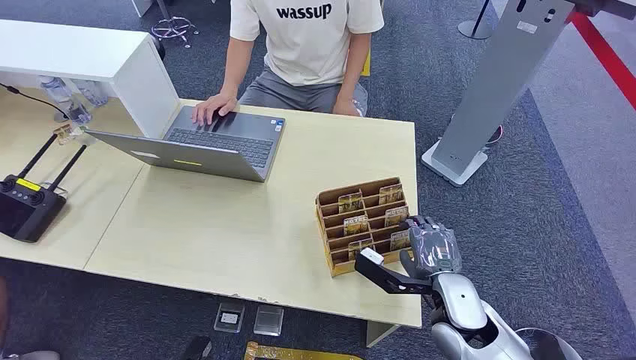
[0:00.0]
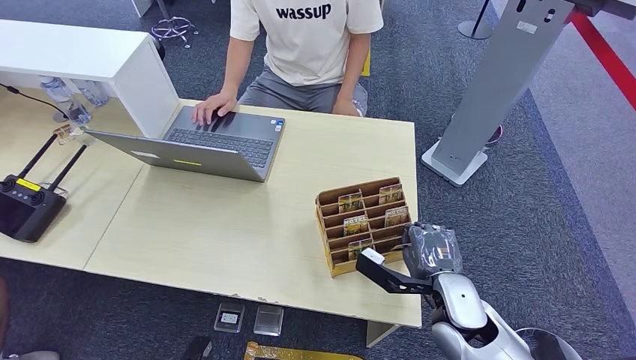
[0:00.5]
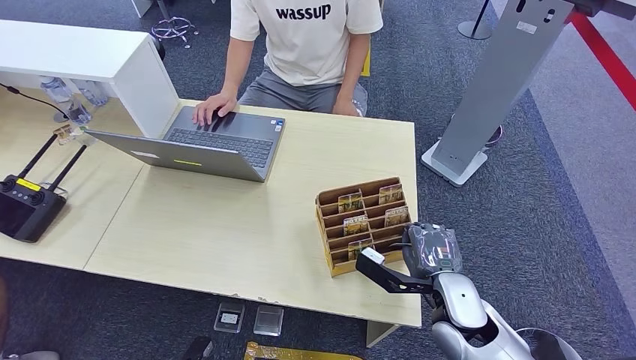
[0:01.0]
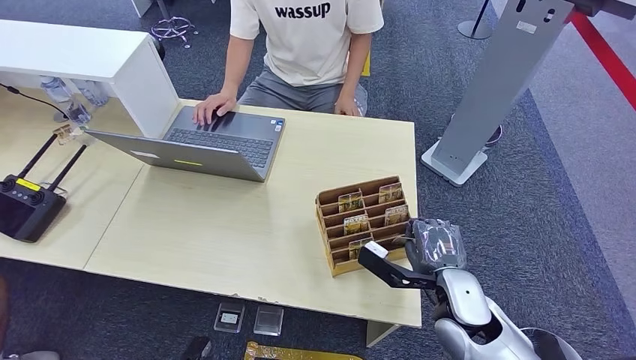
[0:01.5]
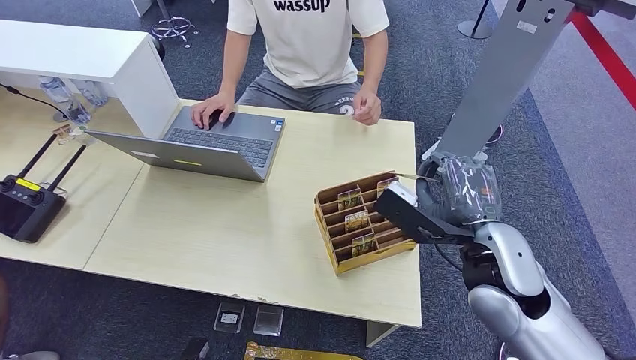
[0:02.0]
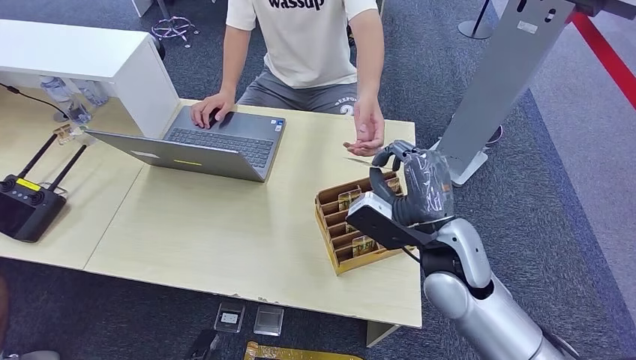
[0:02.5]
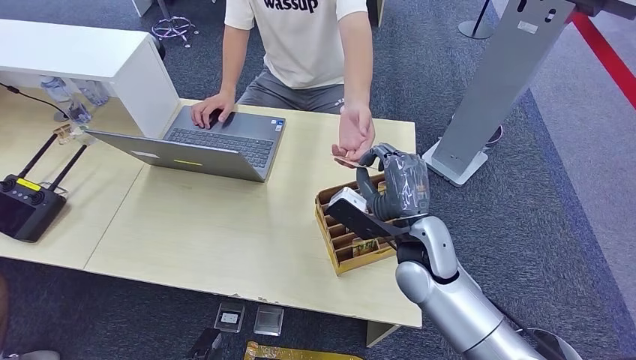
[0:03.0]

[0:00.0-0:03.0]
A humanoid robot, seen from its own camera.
Step, 0:00.0 to 0:02.0: Pick up the room card from the card holder.
Step, 0:02.5 to 0:03.0: Hand the room card to the target.
0:01.5 to 0:03.0: The right hand moves to the left, upward and forward, about 10 cm.
